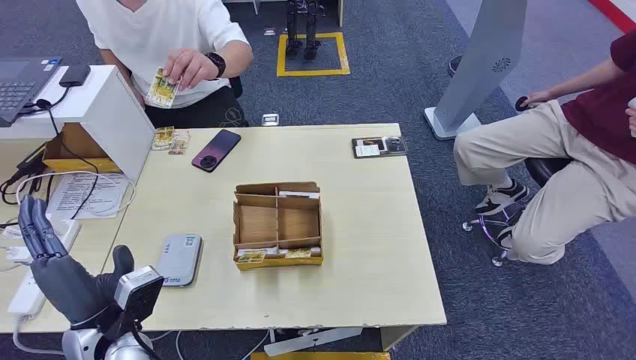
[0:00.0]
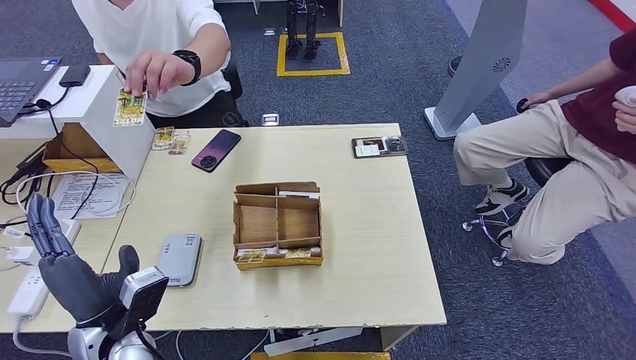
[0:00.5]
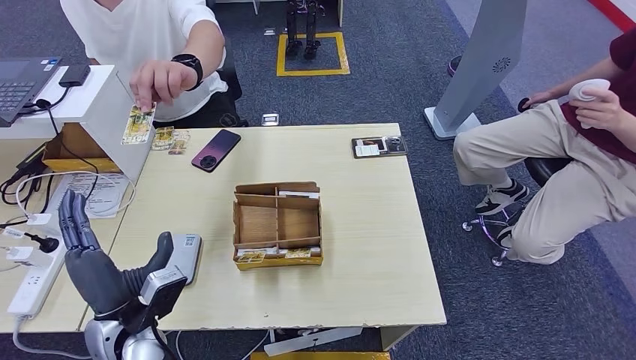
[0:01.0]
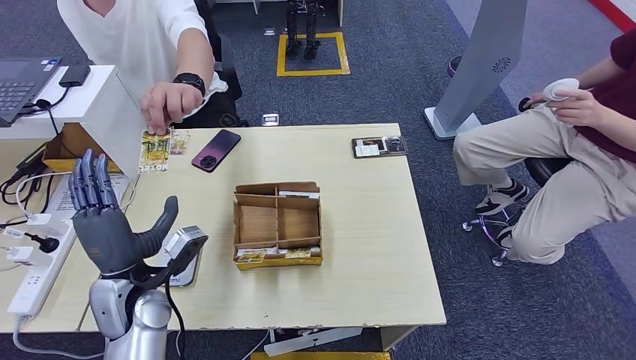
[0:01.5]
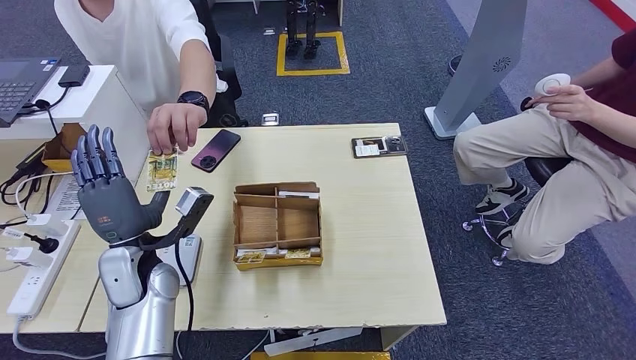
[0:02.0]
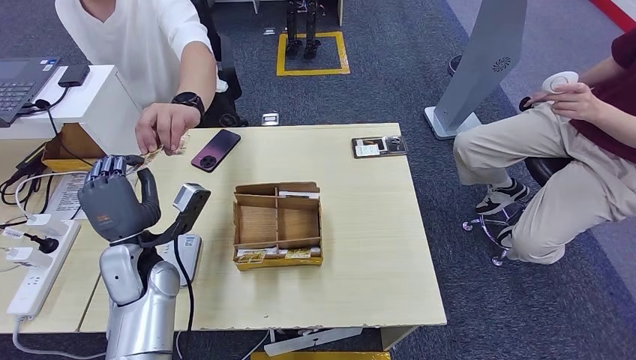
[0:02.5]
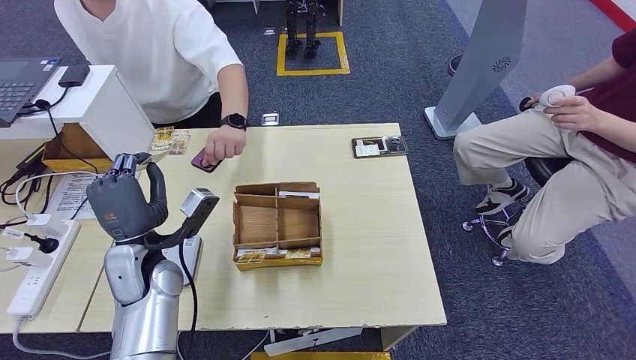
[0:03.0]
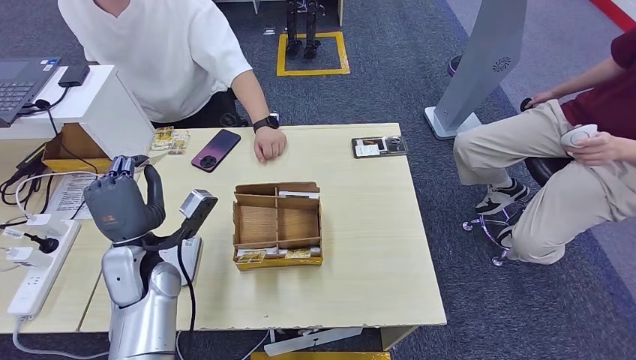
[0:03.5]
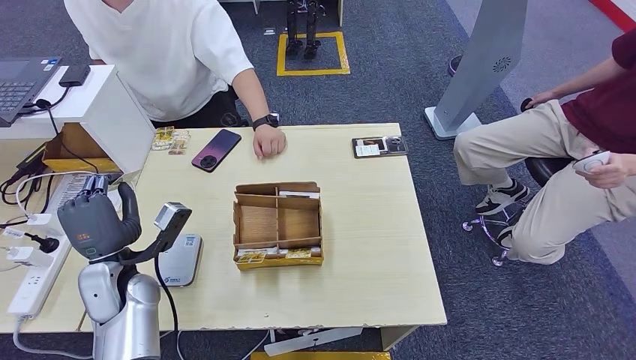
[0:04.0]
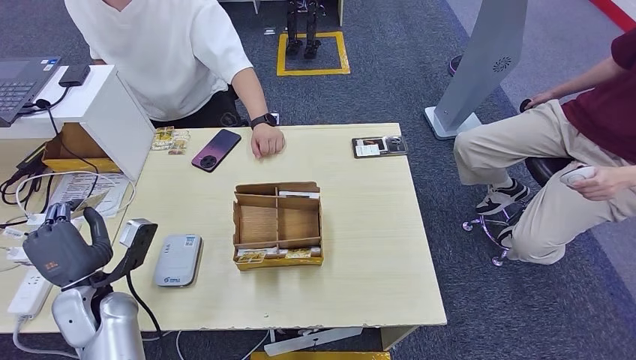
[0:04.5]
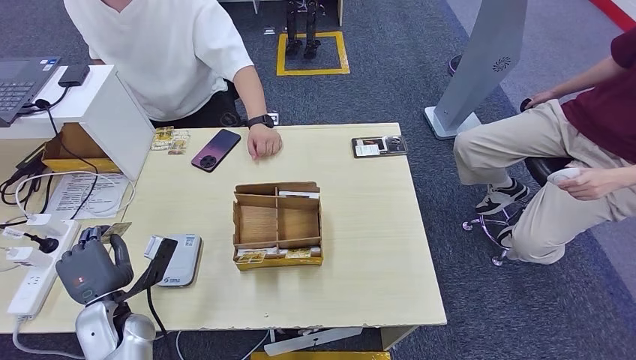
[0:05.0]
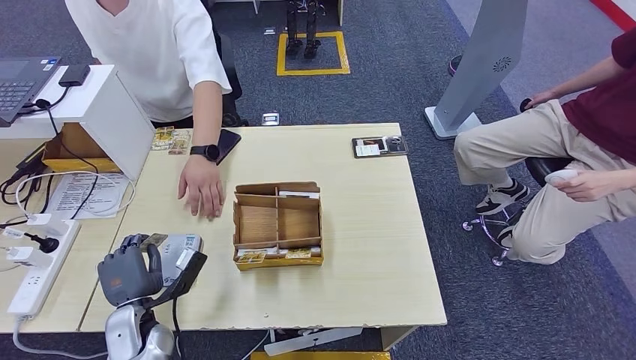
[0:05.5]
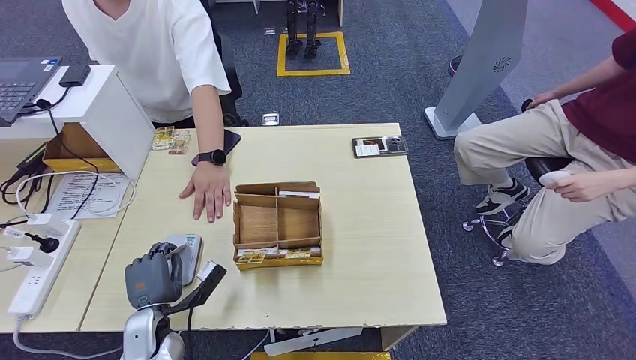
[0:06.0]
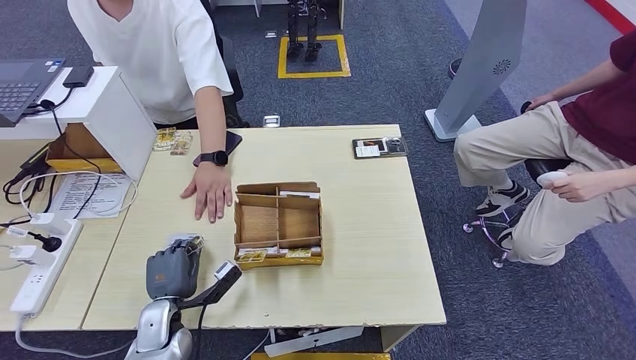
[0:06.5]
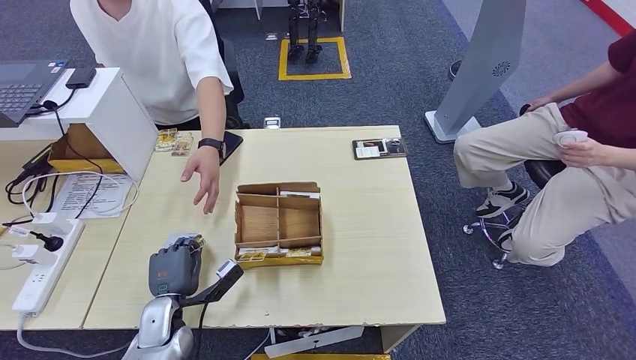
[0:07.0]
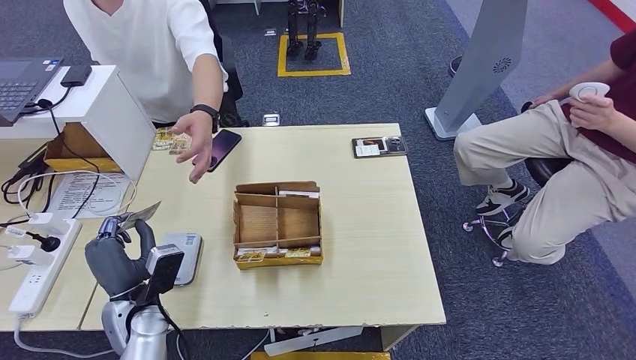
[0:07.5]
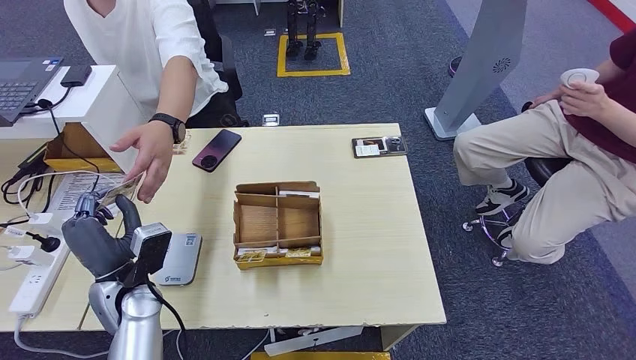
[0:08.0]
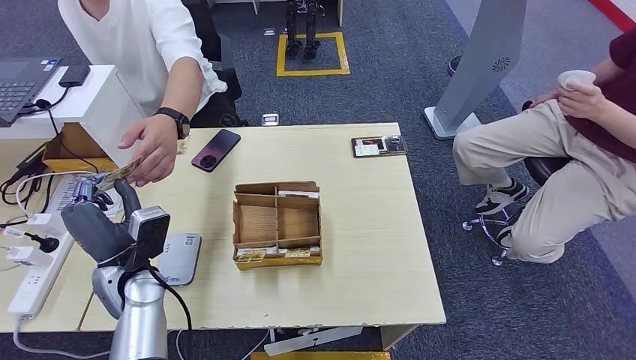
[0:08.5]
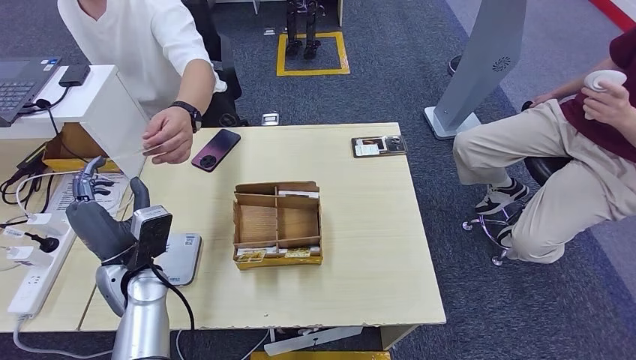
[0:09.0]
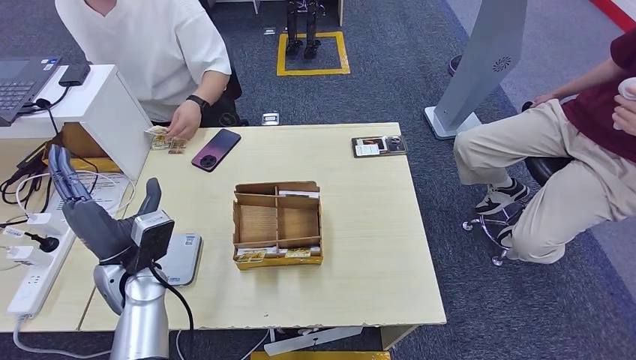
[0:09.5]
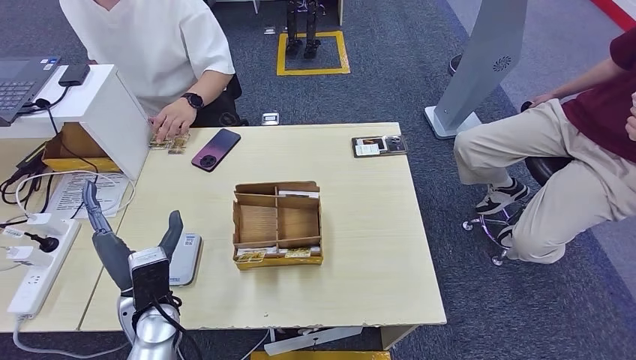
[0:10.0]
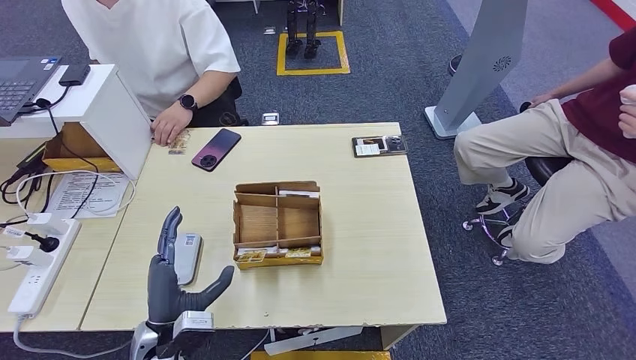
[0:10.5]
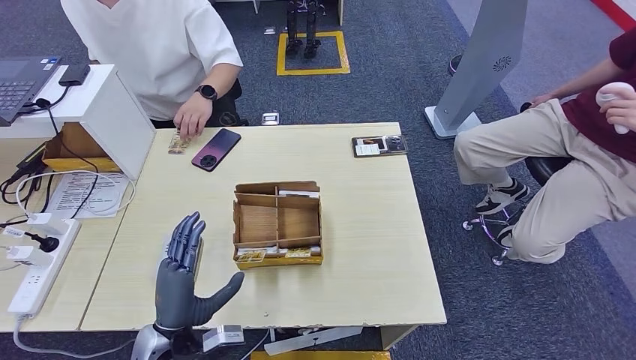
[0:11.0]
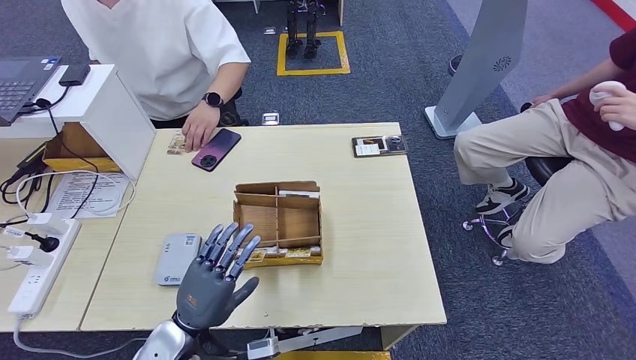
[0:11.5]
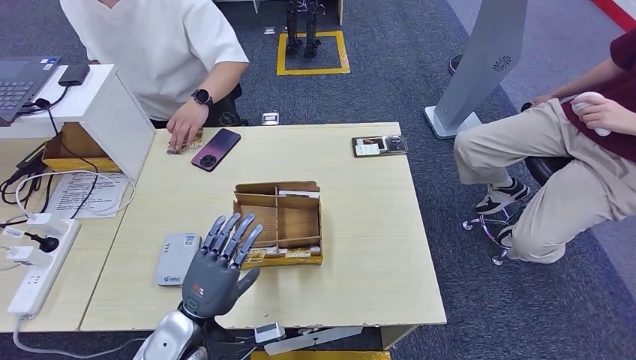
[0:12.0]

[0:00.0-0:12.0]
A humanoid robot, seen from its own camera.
Step, 0:00.0 to 0:02.5: Take the ID card from the person's hand.
Step, 0:03.5 to 0:06.5: Place the ID card on the card reader.
Step, 0:07.5 to 0:10.5: Hand the ID card to the person.
0:02.0 to 0:04.0: The left hand shifts by some 5 cm.
0:04.0 to 0:06.0: The left hand shifts approximately 15 cm downward and backward.
0:06.0 to 0:08.0: The left hand goes about 10 cm upward.
0:08.0 to 0:10.0: The left hand ends up about 5 cm from where it was.
0:10.0 to 0:12.0: The left hand ends up some 5 cm from where it was.

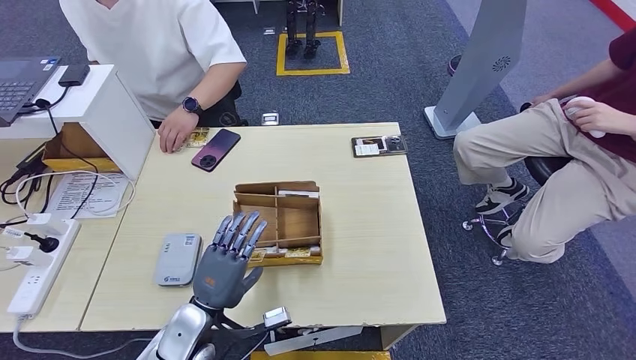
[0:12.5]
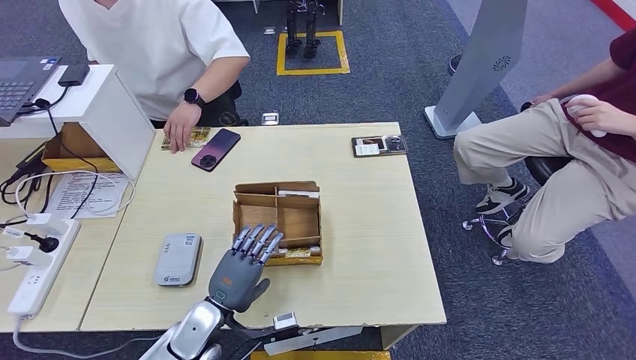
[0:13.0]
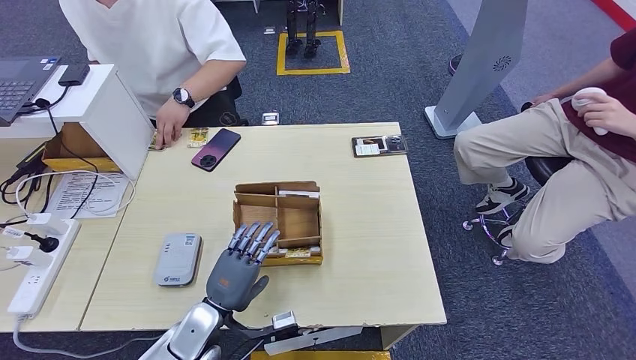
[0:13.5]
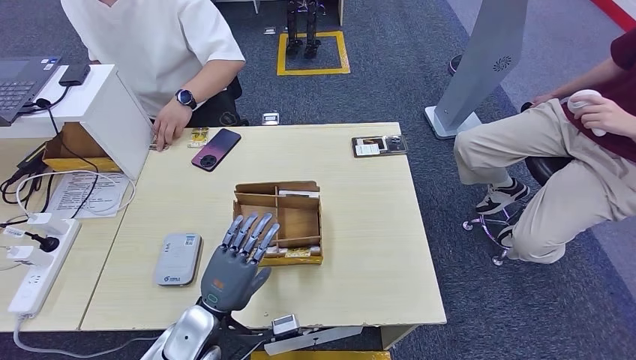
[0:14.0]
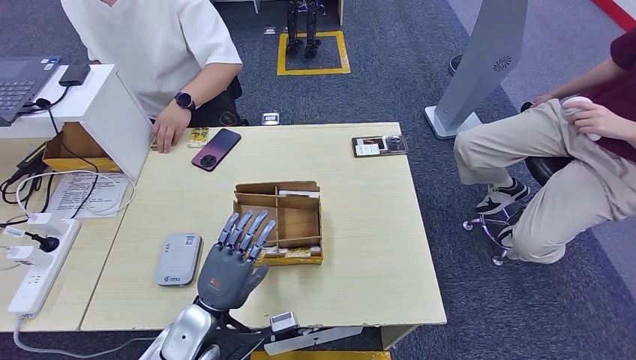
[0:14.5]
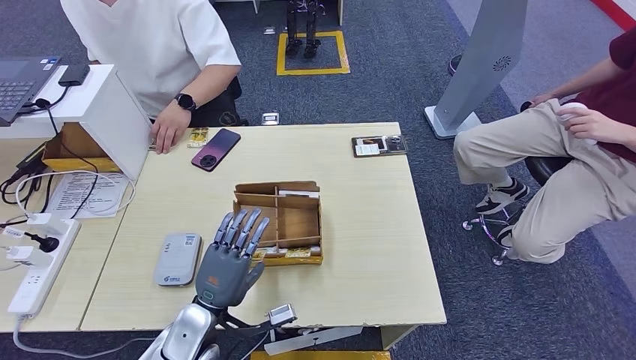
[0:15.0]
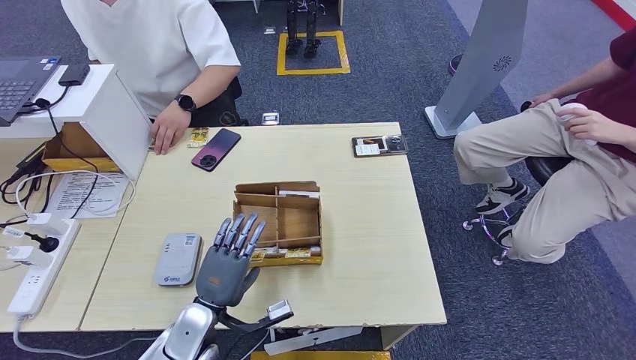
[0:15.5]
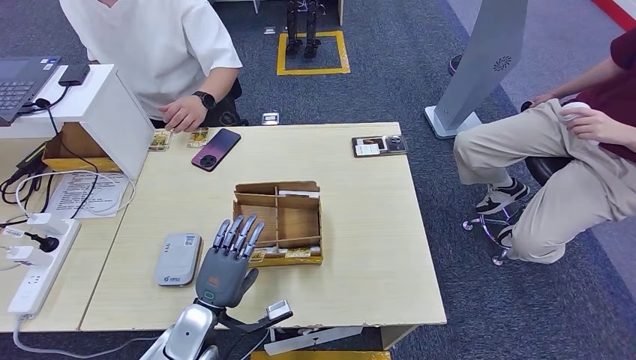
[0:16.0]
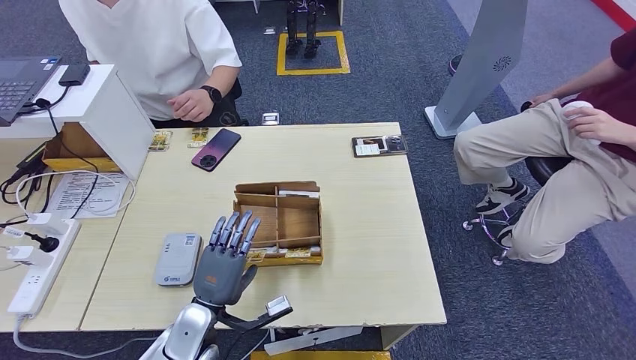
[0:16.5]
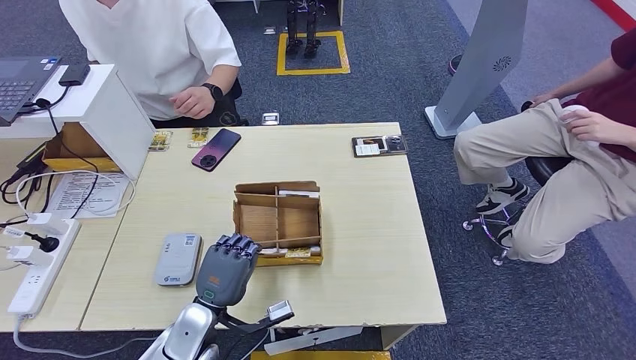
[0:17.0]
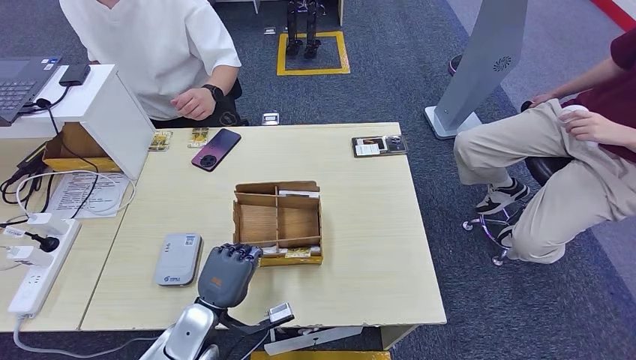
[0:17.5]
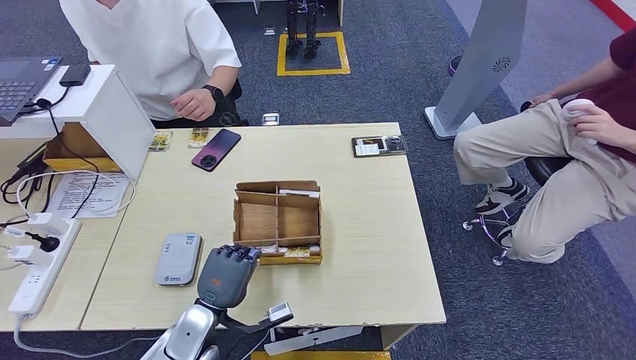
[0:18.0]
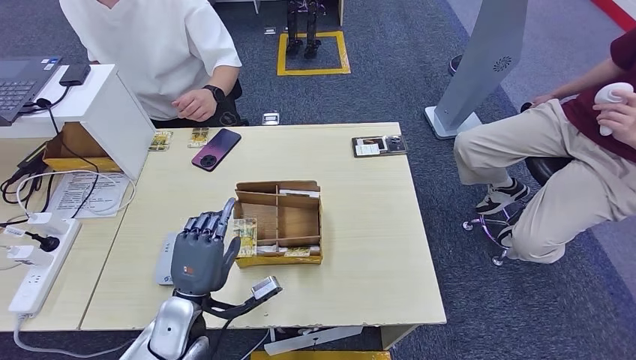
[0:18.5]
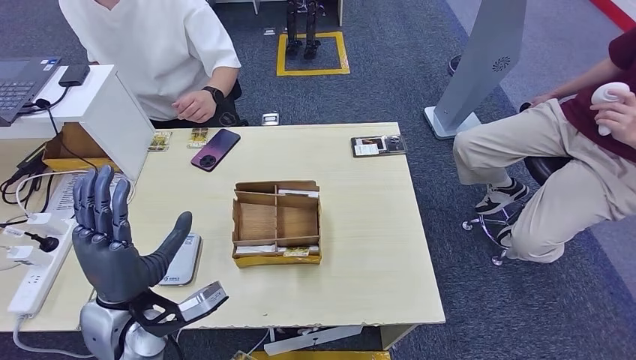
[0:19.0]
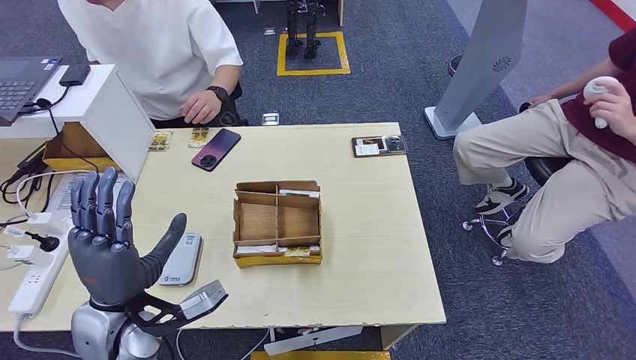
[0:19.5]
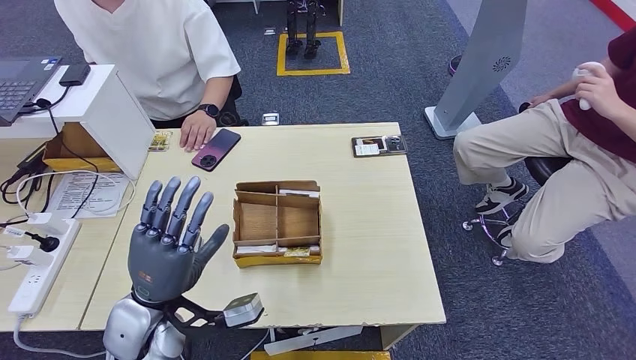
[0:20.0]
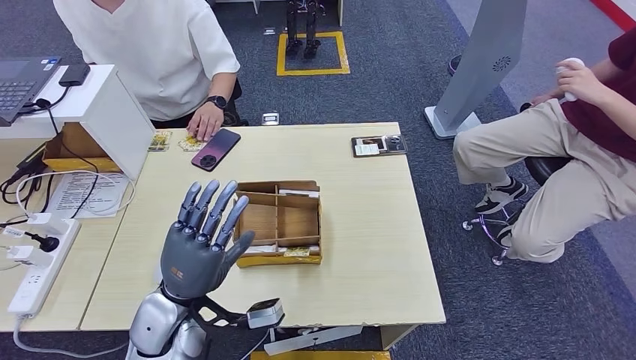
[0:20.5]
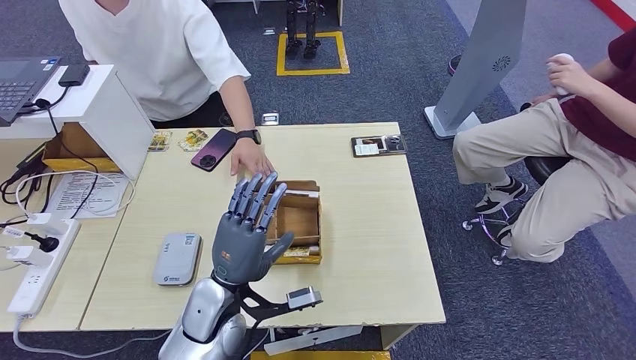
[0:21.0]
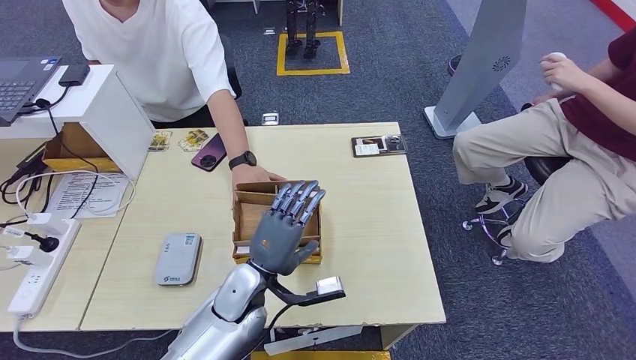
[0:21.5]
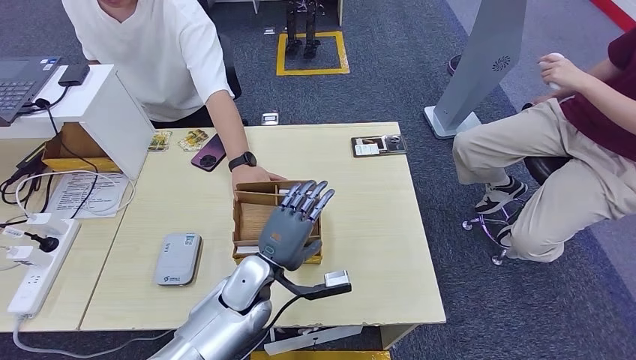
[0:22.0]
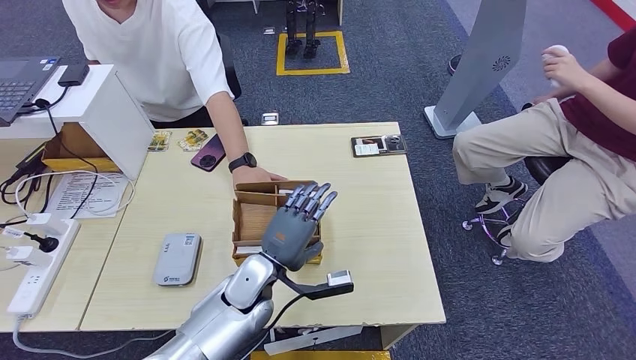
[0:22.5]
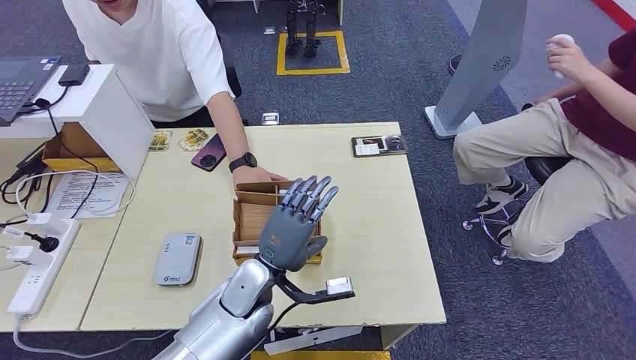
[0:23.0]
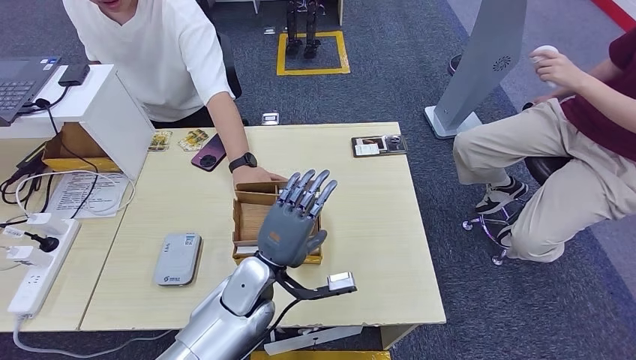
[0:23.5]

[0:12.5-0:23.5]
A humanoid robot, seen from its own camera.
0:12.5 to 0:16.0: The hands make only small movements.
0:16.0 to 0:18.0: Both hands stay put.
0:18.0 to 0:20.0: The left hand moves upward, roughly 15 cm.
0:20.0 to 0:21.5: The left hand is displaced to the right and downward by some 15 cm.
0:21.5 to 0:23.5: There are only small adjustments of the hands.
